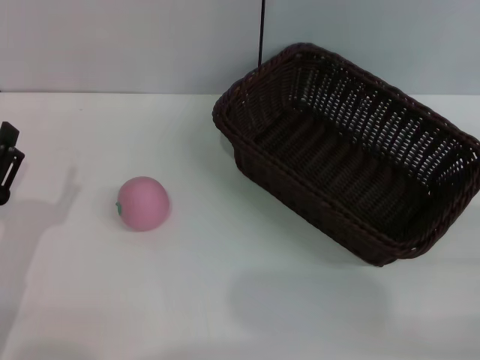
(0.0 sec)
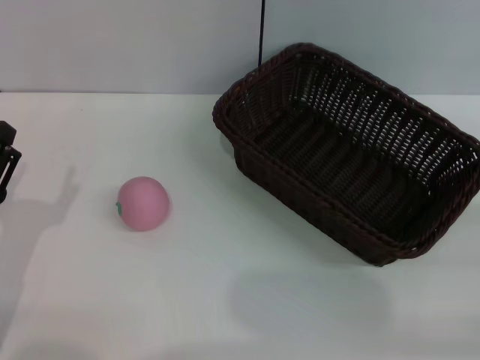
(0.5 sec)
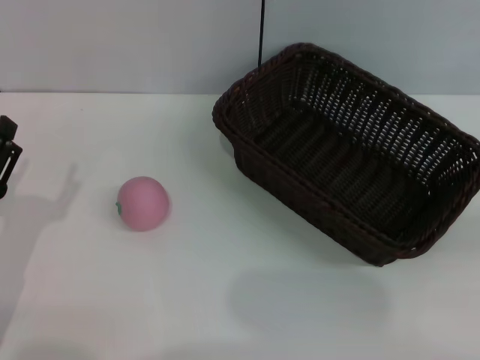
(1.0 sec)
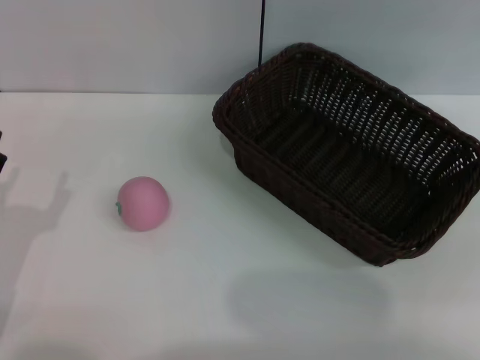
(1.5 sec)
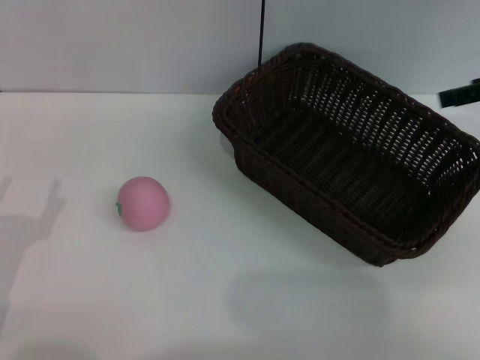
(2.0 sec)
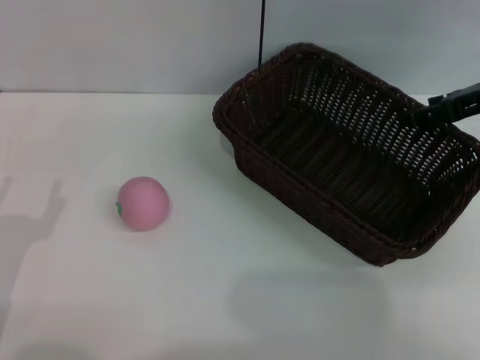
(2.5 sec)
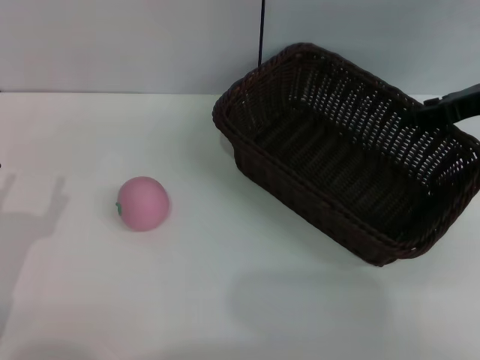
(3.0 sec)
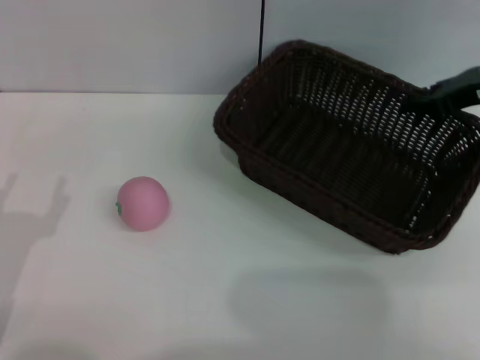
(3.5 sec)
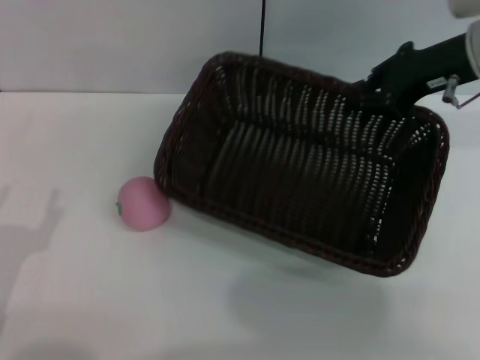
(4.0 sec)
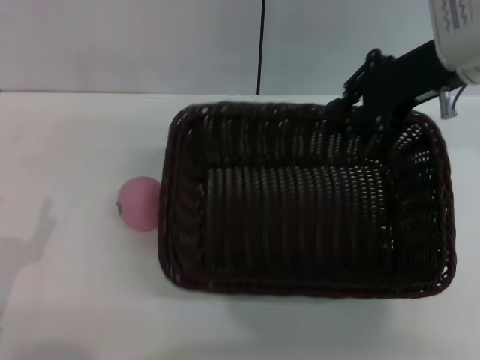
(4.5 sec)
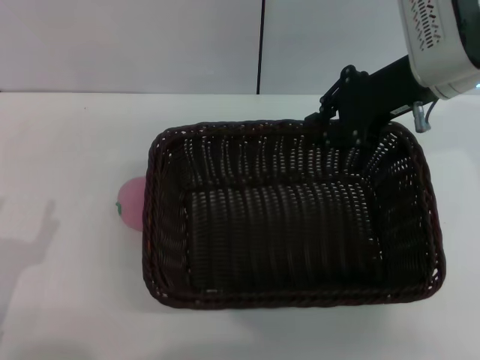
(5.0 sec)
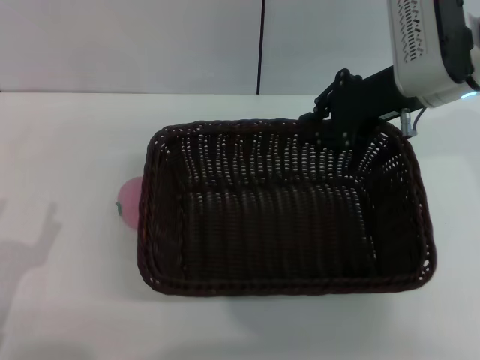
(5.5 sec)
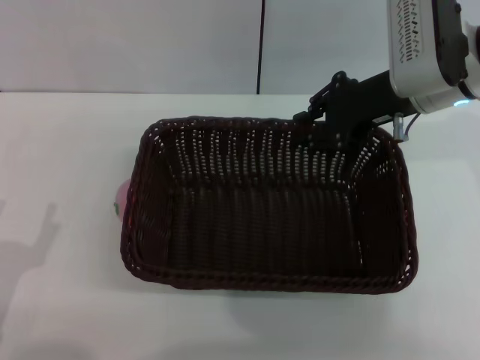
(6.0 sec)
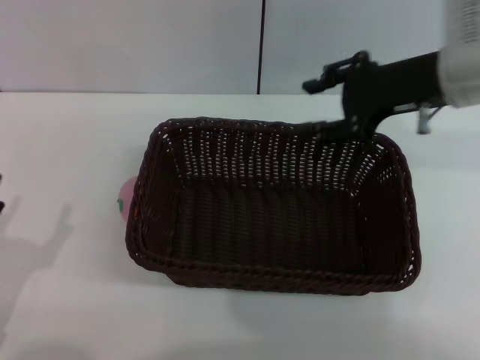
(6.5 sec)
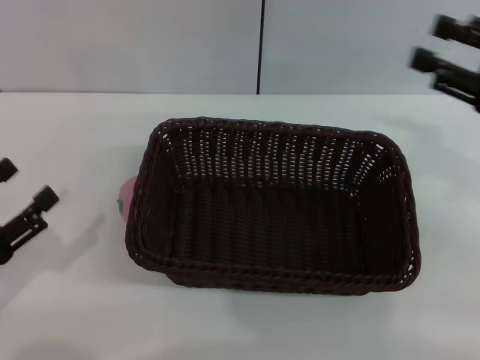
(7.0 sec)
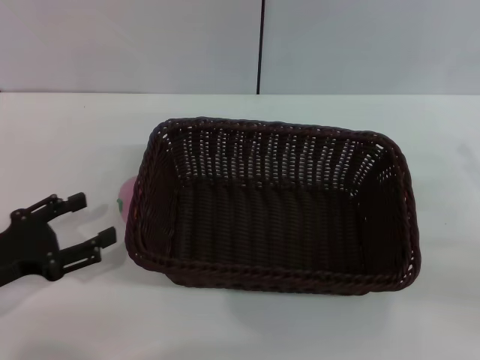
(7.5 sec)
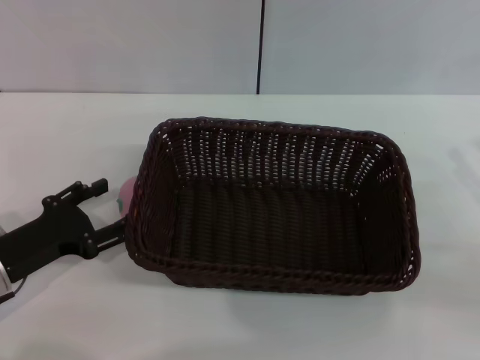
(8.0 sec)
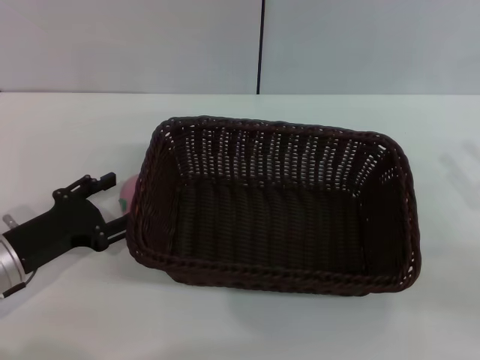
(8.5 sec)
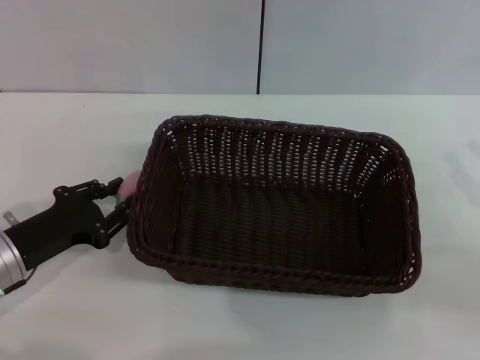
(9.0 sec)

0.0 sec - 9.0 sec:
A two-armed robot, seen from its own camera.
Step, 0.0 sec - 4.0 sec: Pick up the dark basket with the right gripper.
Step, 4.5 sec - 6.5 sec: Place the dark basket in the center of view with the right gripper.
0.0 sec - 2.0 sec: The right gripper heads forward and upward, covering about 25 cm.
2.0 sec - 4.5 sec: The right gripper goes some 15 cm to the left, and closes its fingers.
4.5 sec - 7.0 sec: The left gripper moves approximately 5 cm, while the right gripper is displaced to the right and backward by roughly 15 cm, and opens its fingers.
7.0 sec - 9.0 sec: The right gripper moves downward and backward, roughly 10 cm. Meanwhile the left gripper heads forward and to the right, covering roughly 10 cm.

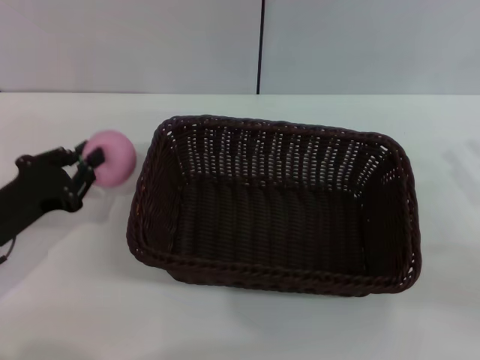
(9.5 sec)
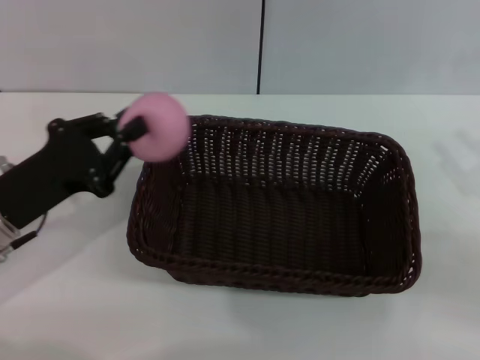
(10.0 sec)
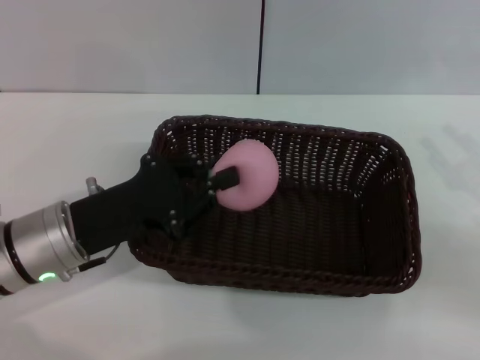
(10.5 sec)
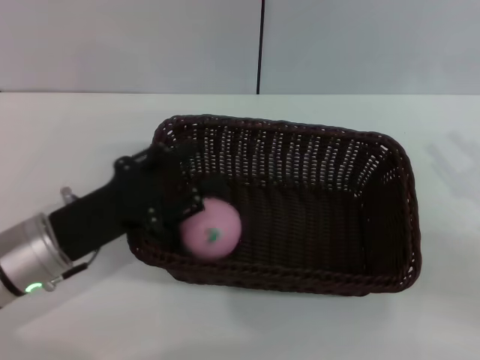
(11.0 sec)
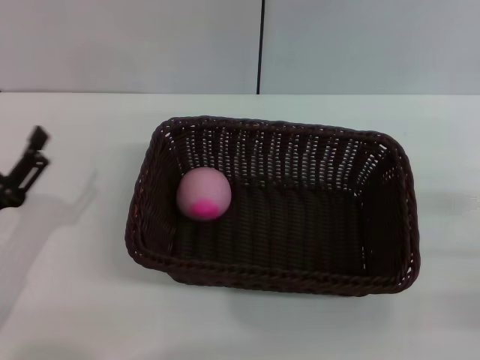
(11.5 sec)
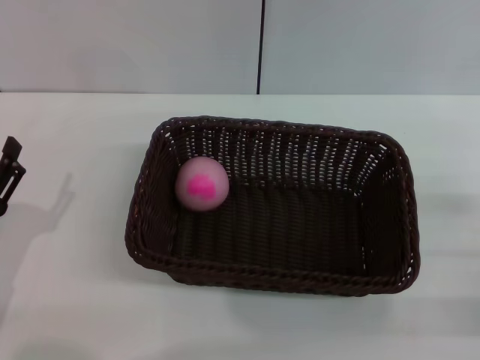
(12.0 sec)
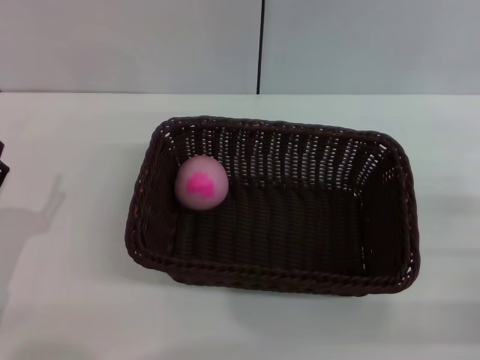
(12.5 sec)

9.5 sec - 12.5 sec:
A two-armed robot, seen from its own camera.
Step, 10.0 sec - 11.0 sec: Place the peach into the basket with the left gripper.
9.5 sec - 11.0 sec: The left gripper heads to the right, covering roughly 5 cm, and opens up.
11.0 sec - 12.5 sec: The left gripper shifts roughly 10 cm to the left and backward, and opens its fingers.
